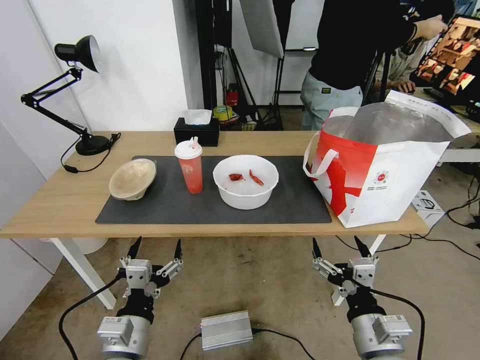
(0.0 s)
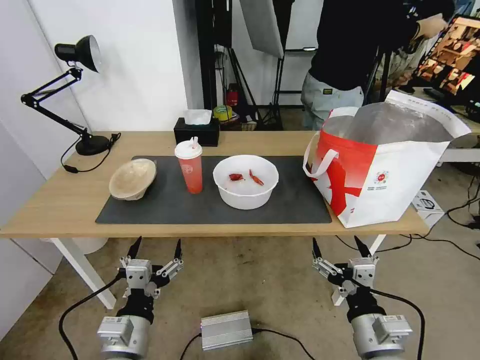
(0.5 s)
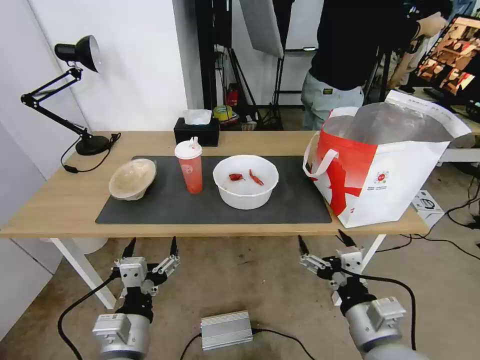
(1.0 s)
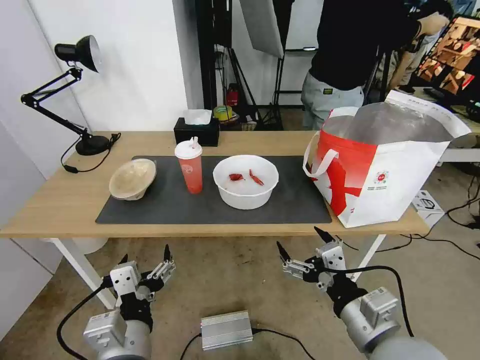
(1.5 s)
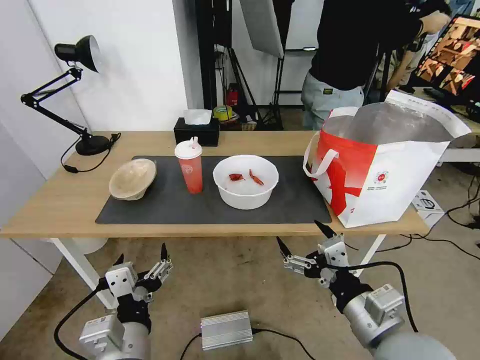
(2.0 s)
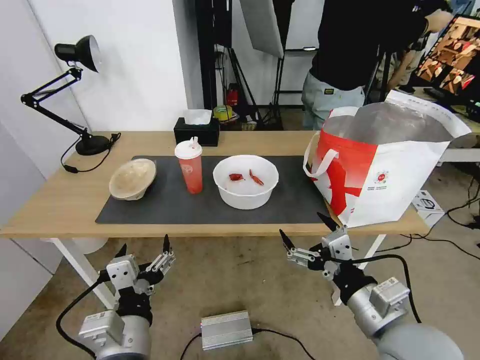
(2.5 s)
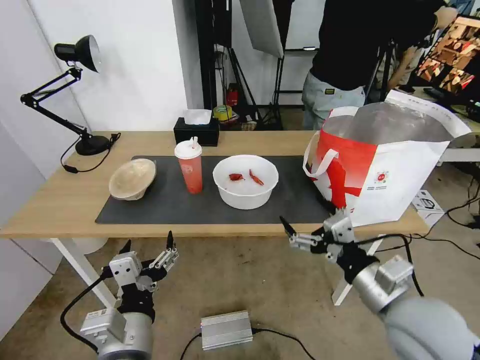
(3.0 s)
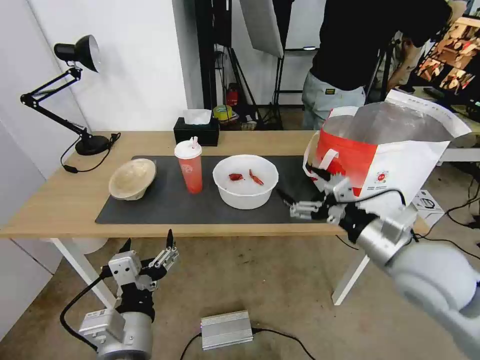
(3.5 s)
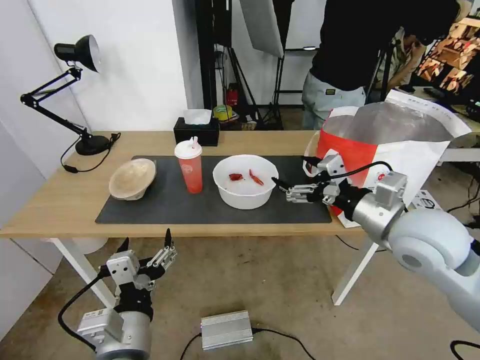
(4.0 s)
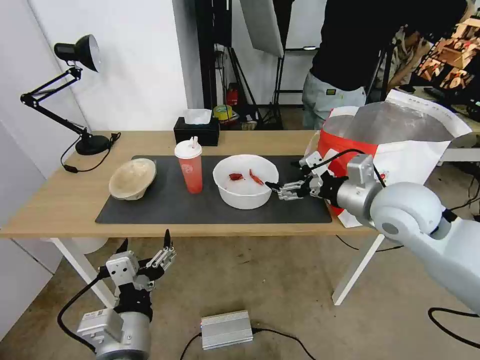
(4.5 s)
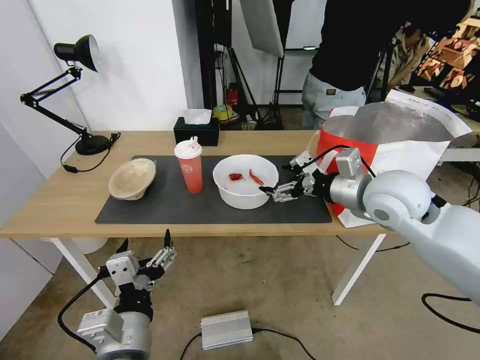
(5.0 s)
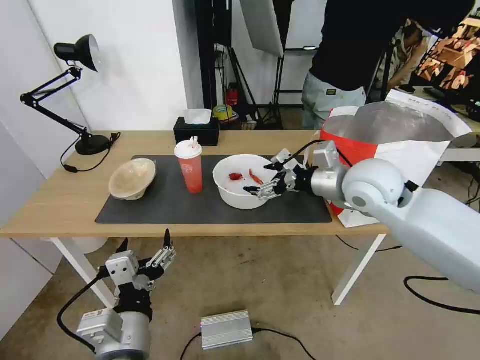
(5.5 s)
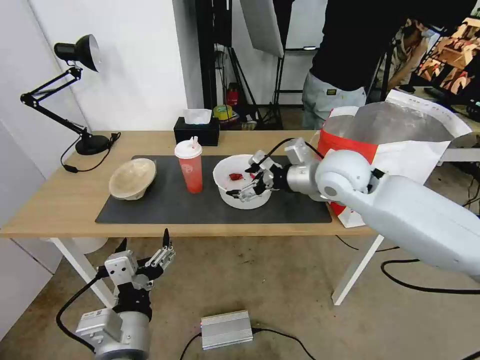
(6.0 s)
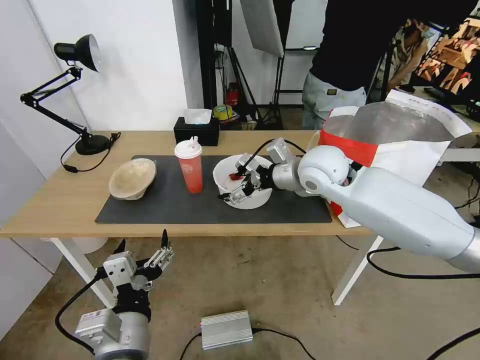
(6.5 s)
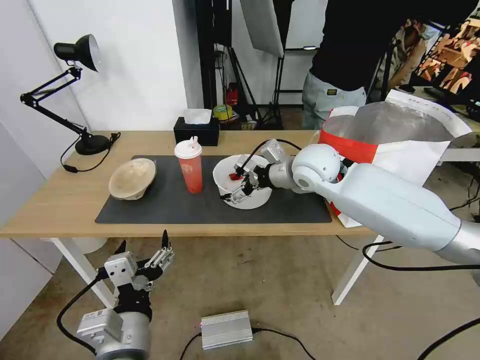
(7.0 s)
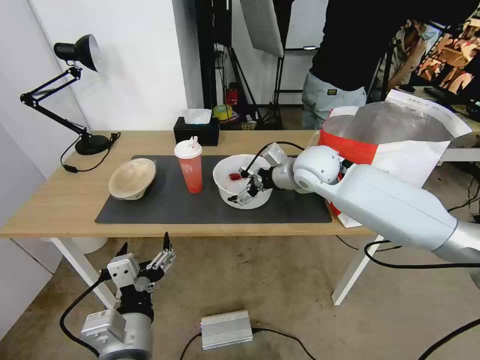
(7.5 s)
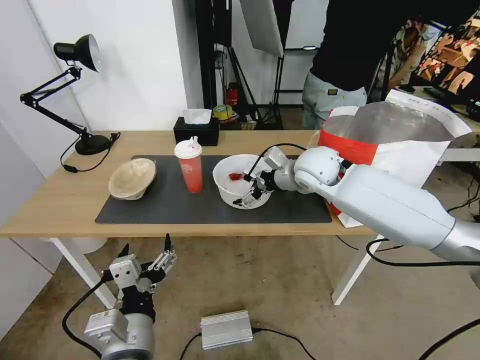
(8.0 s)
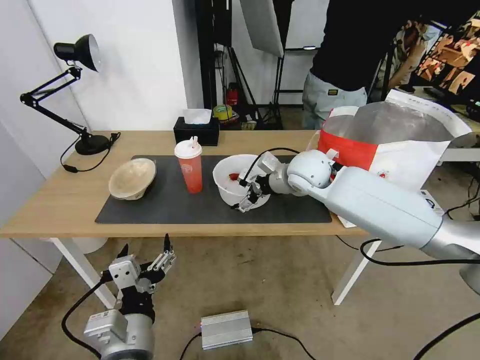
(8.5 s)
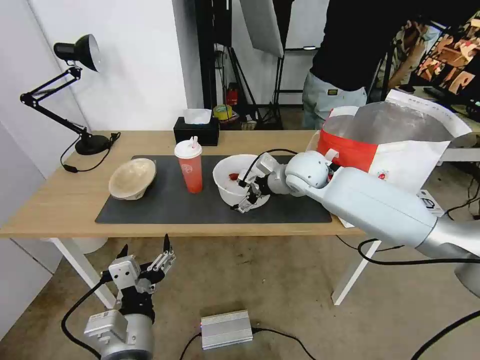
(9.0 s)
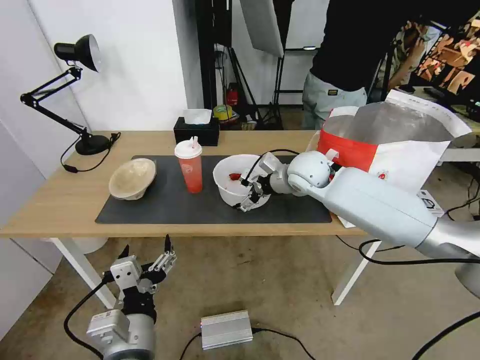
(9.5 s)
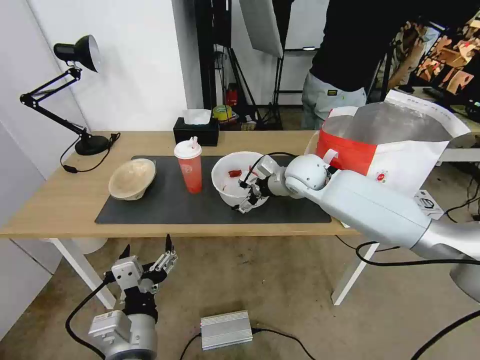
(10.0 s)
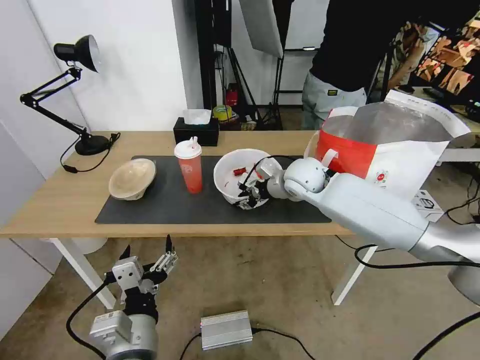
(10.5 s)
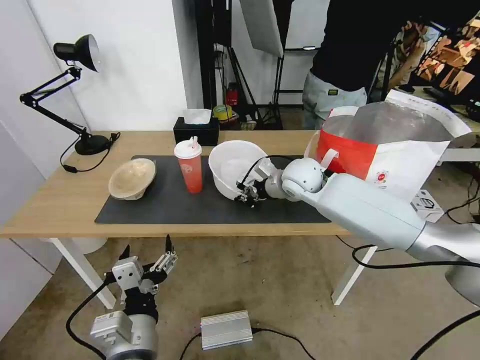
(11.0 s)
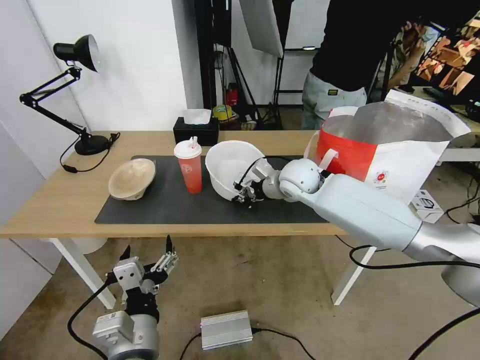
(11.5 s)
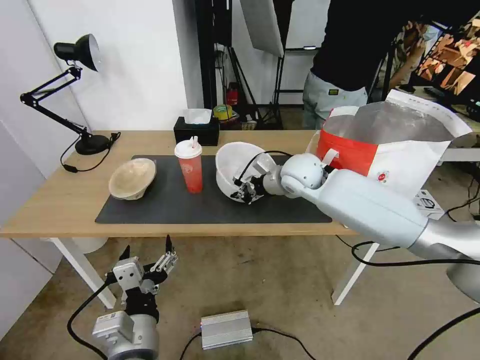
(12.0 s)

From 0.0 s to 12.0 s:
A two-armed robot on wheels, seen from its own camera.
Task of the whole recording: Pick up the trash from the table and place it into the takeout bag.
From 2.0 s to 4.0 s: The right gripper goes approximately 20 cm forward and upward.
From 4.0 s to 6.0 s: The right gripper goes roughly 15 cm forward and to the left.
From 6.0 s to 8.0 s: The right gripper goes roughly 5 cm forward.
From 8.0 s to 10.0 s: There are only small adjustments of the grippers.
From 10.0 s to 12.0 s: The right gripper closes its fingers.

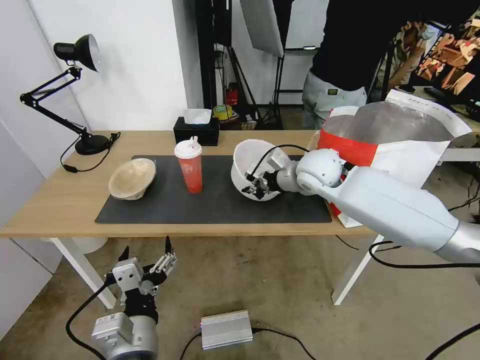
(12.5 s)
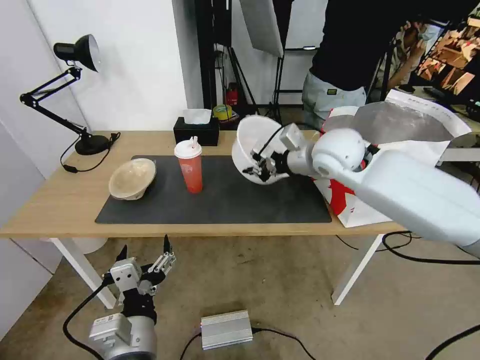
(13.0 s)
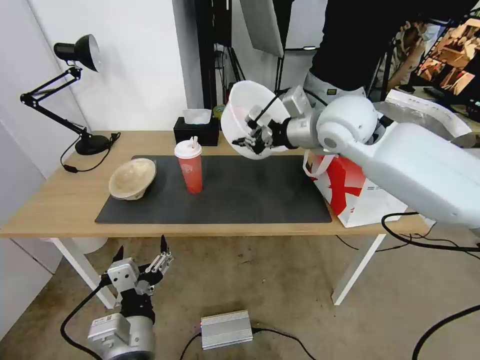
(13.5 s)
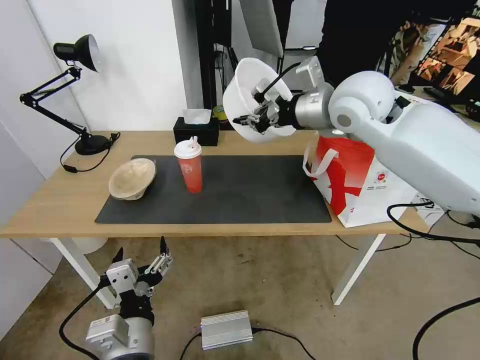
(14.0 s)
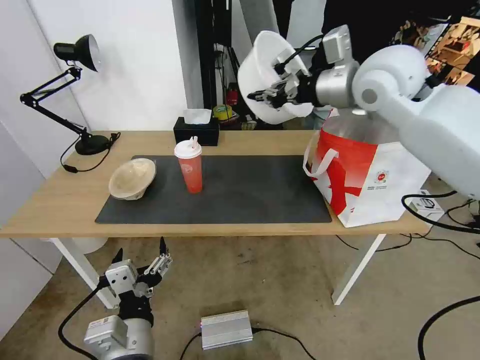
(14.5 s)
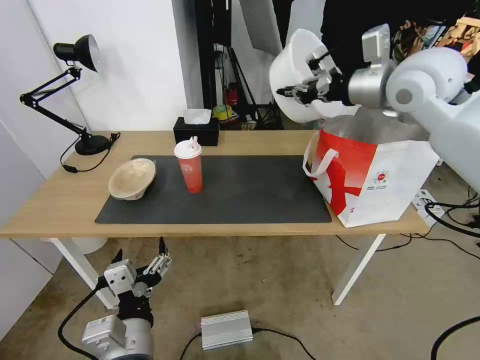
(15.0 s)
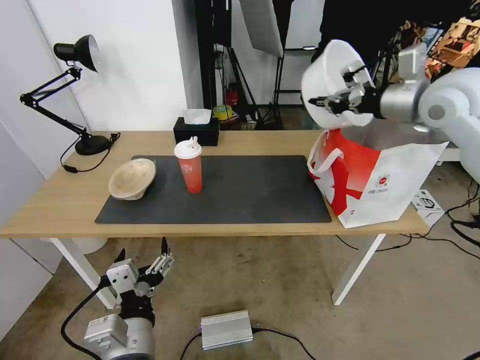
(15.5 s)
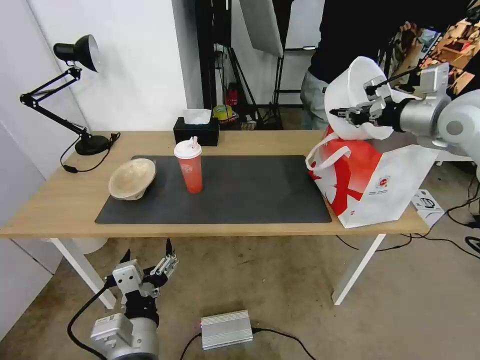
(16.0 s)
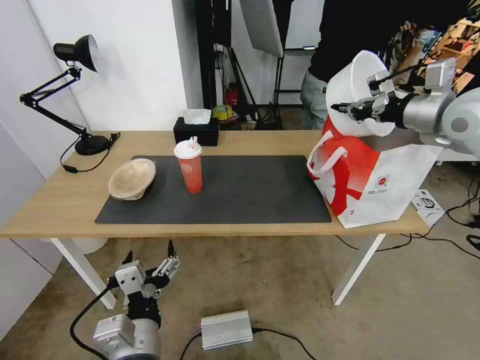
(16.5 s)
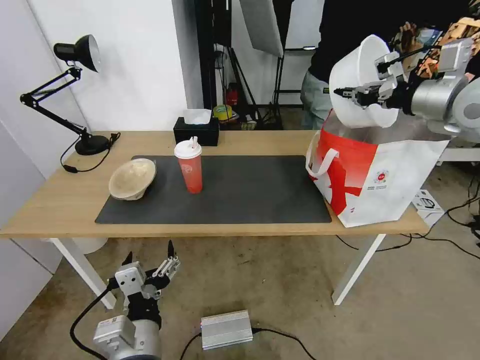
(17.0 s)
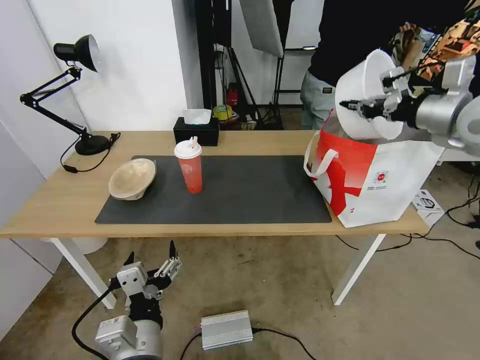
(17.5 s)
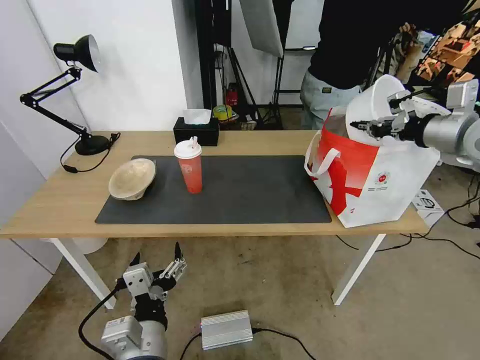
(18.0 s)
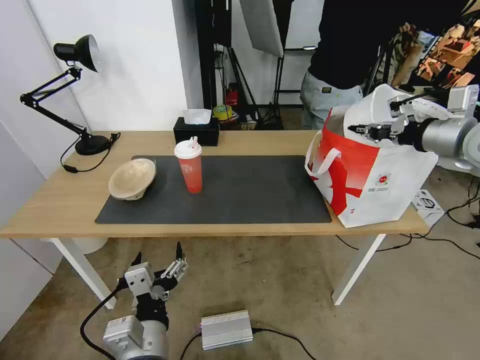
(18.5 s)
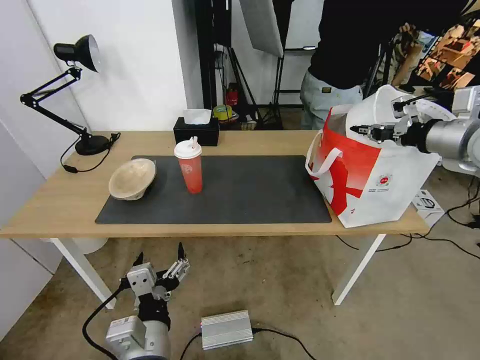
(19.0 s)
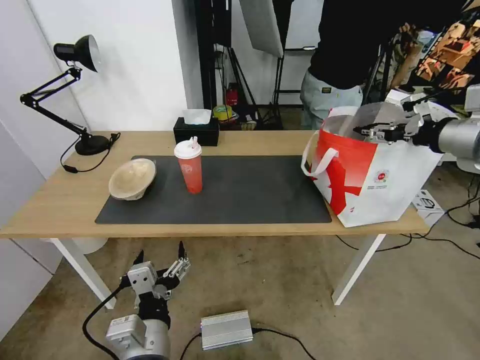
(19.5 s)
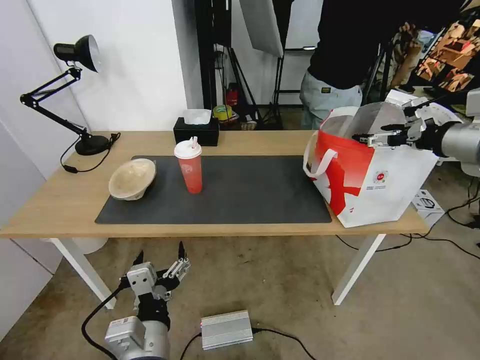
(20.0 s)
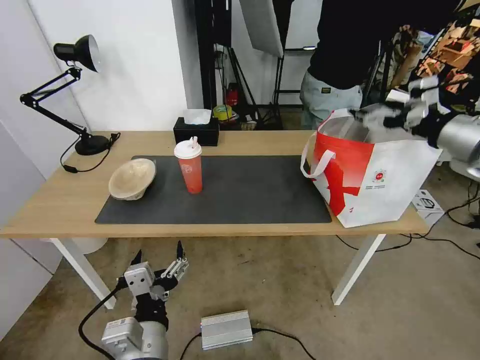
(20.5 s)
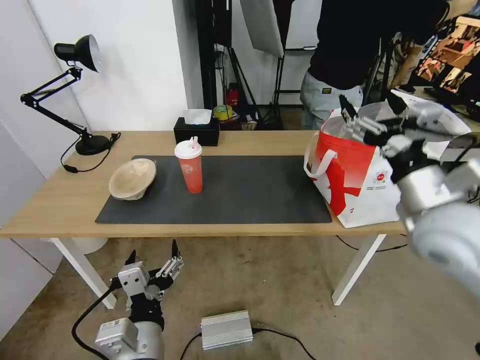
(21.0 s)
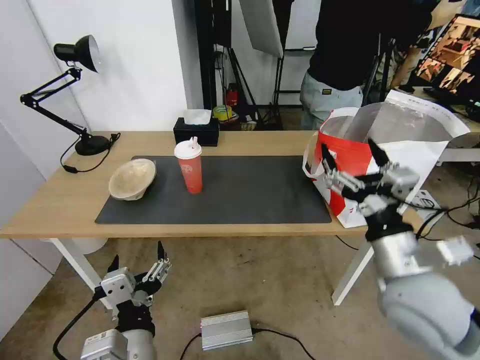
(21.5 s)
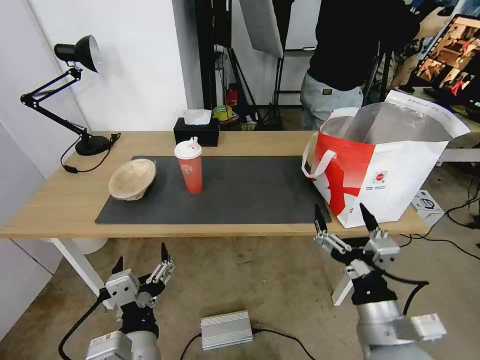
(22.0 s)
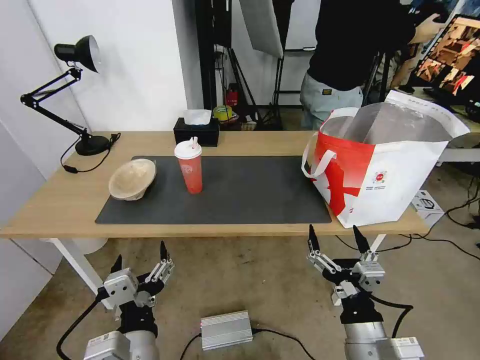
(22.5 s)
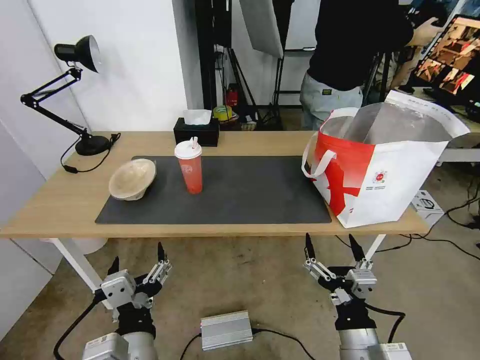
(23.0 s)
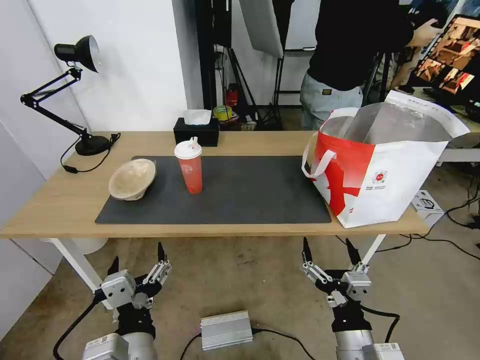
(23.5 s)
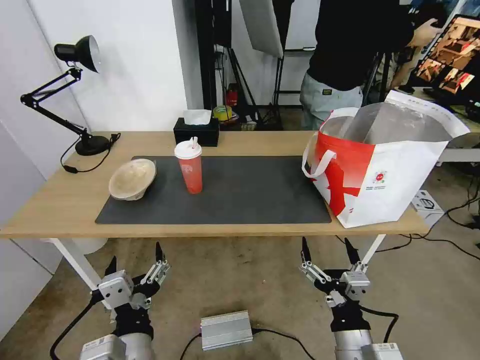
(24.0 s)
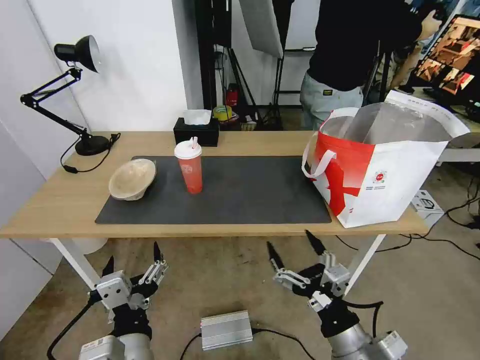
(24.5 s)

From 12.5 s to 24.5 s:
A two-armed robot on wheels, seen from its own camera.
Task of the whole recording: Pick up the trash from the table and place it into the takeout bag.
From 12.5 s to 14.5 s: The right gripper shifts about 20 cm upward.
From 14.5 s to 16.5 s: The right gripper moves to the right, about 15 cm.
From 16.5 s to 18.5 s: The right gripper moves some 5 cm.
From 18.5 s to 20.5 s: The right gripper shifts some 5 cm backward, and opens its fingers.
From 20.5 s to 22.5 s: The right gripper travels downward, backward and to the left by some 40 cm.

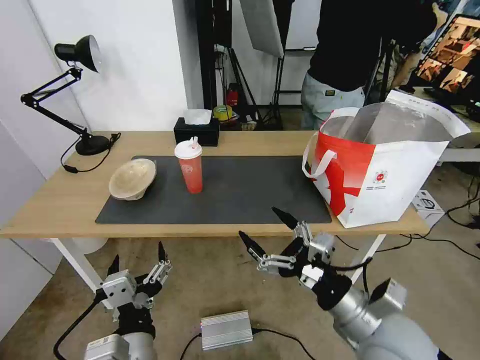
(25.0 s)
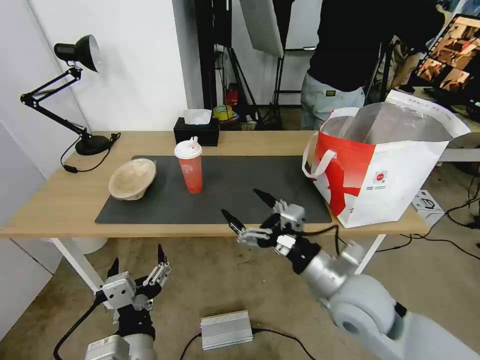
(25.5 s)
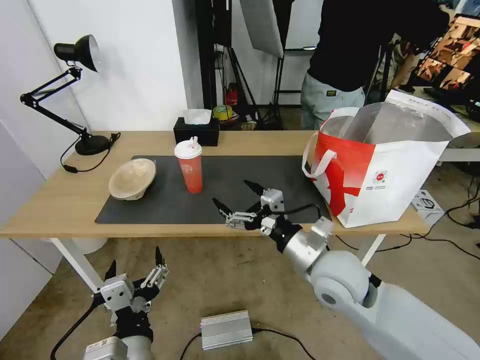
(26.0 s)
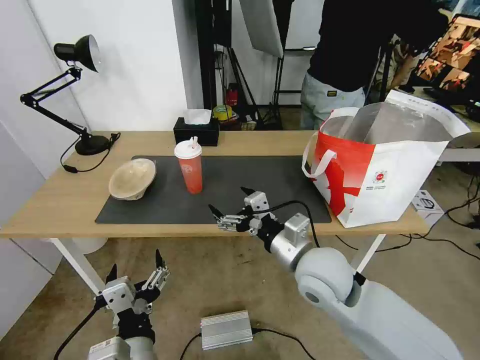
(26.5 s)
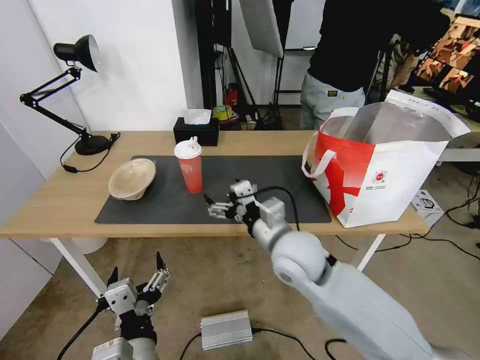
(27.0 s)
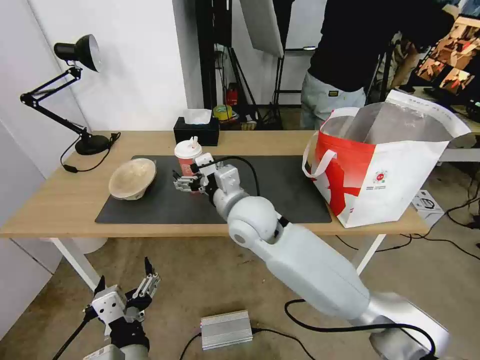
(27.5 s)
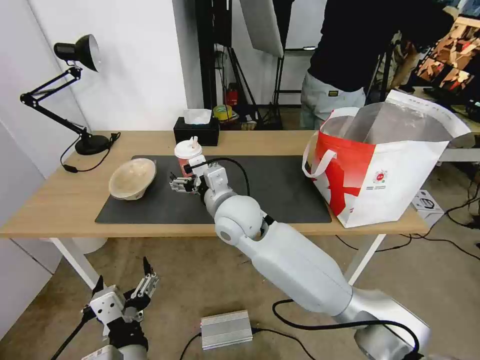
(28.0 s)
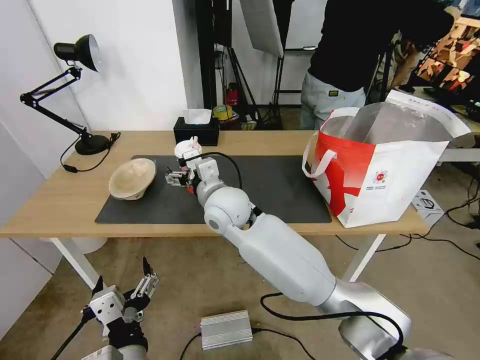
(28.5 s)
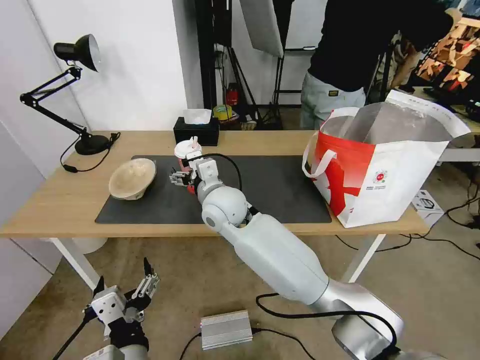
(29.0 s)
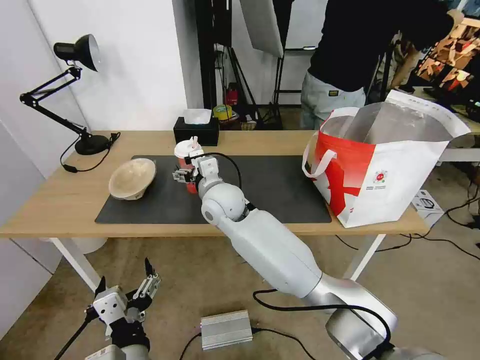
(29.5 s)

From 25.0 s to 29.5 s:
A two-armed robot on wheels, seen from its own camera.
Task of the whole recording: Pick up the trash from the table and place it into the takeout bag.
From 25.0 s to 27.0 s: The right gripper goes some 20 cm forward and to the left.
From 27.0 s to 29.5 s: The right gripper heads to the left and forward, covering about 20 cm.
